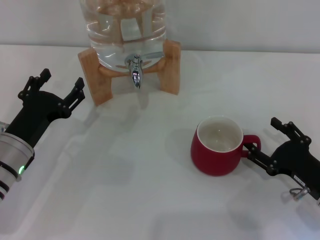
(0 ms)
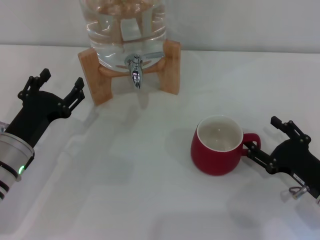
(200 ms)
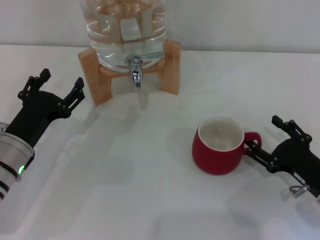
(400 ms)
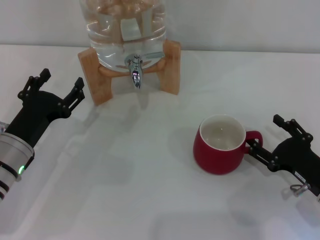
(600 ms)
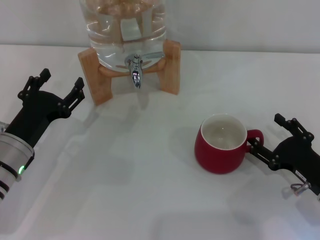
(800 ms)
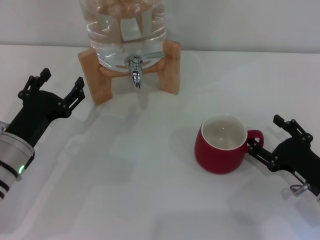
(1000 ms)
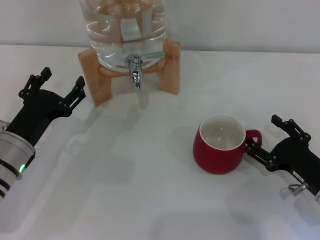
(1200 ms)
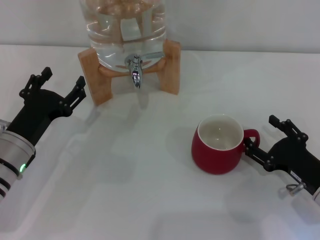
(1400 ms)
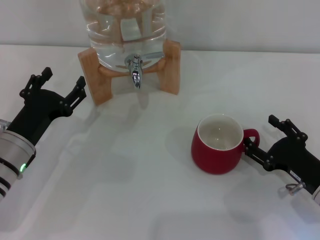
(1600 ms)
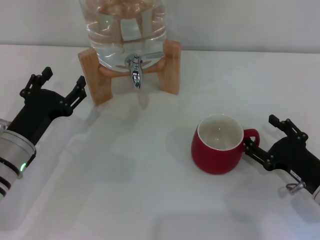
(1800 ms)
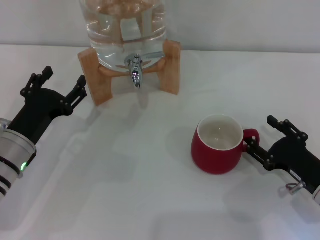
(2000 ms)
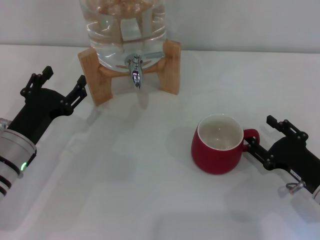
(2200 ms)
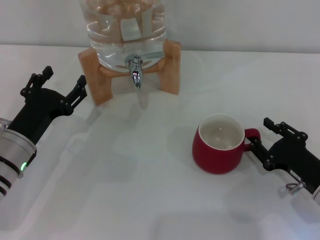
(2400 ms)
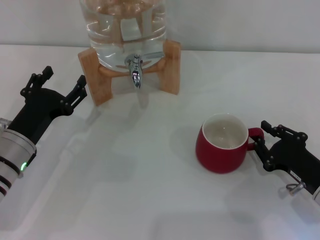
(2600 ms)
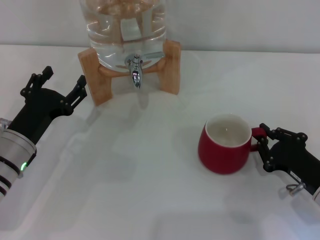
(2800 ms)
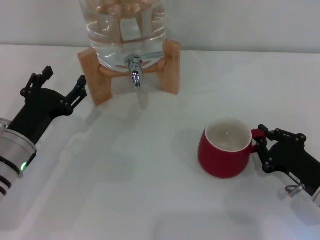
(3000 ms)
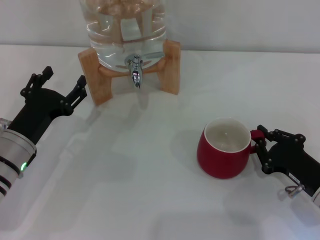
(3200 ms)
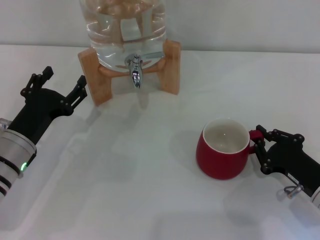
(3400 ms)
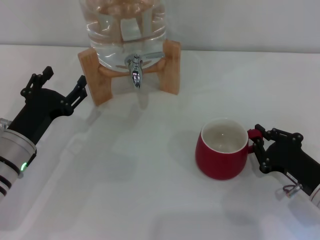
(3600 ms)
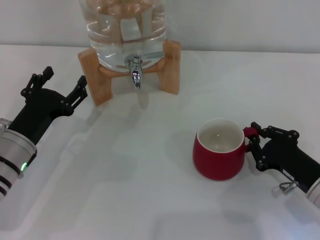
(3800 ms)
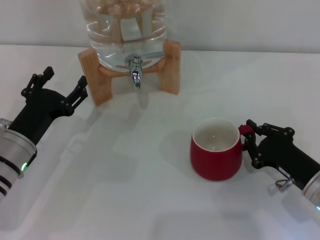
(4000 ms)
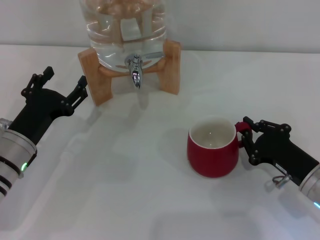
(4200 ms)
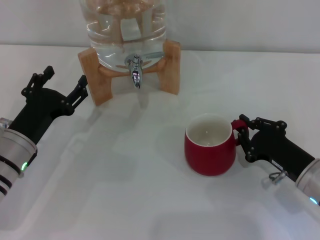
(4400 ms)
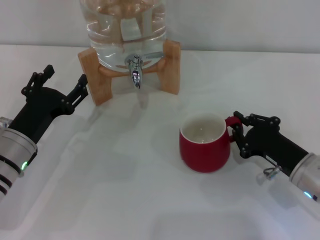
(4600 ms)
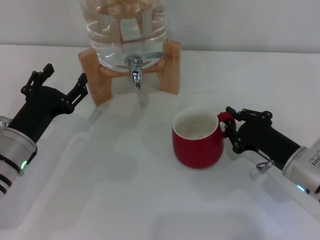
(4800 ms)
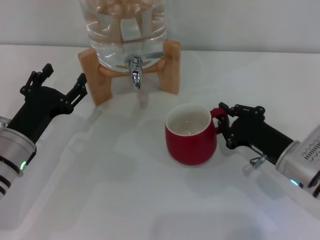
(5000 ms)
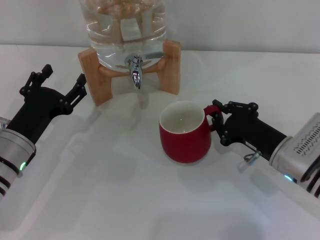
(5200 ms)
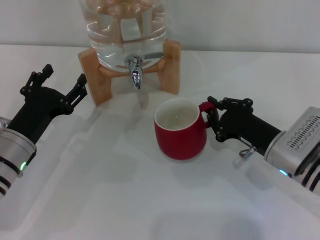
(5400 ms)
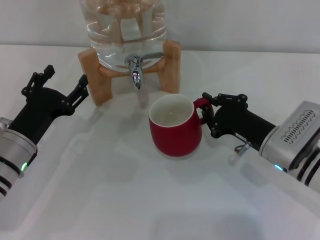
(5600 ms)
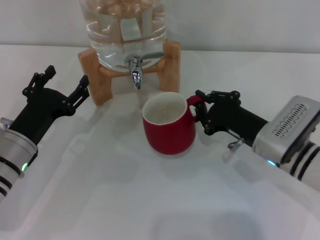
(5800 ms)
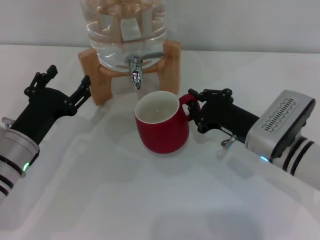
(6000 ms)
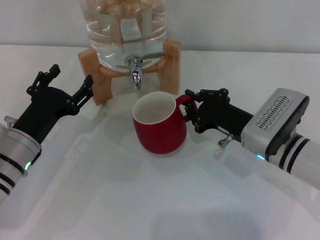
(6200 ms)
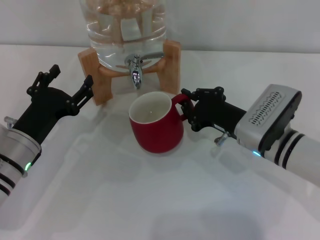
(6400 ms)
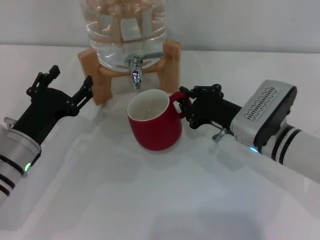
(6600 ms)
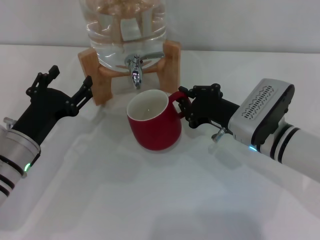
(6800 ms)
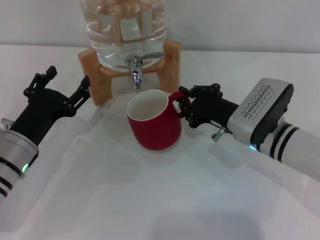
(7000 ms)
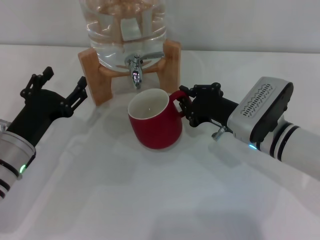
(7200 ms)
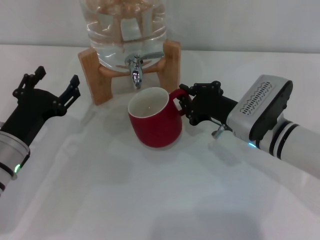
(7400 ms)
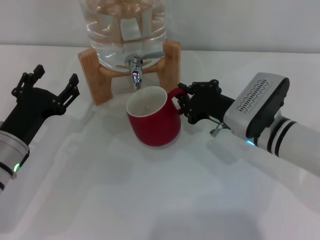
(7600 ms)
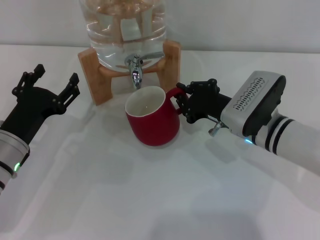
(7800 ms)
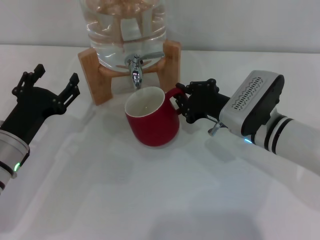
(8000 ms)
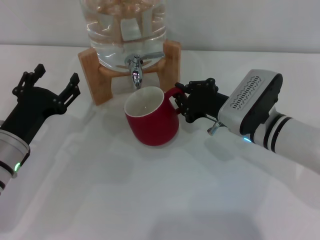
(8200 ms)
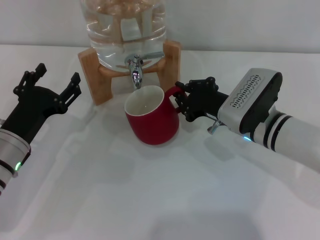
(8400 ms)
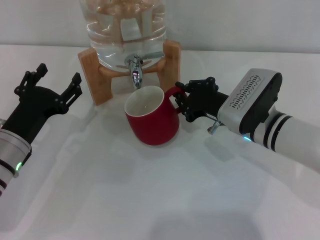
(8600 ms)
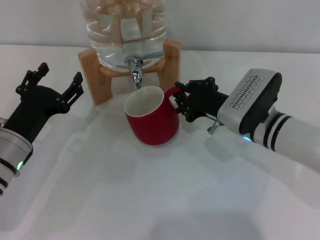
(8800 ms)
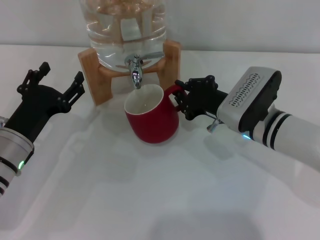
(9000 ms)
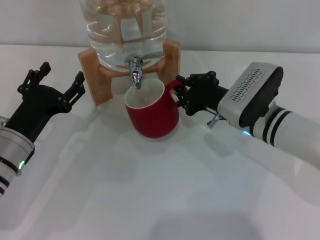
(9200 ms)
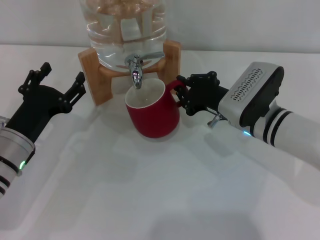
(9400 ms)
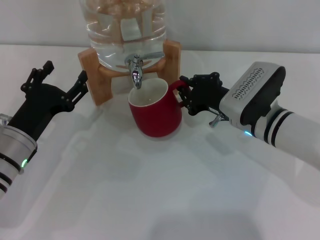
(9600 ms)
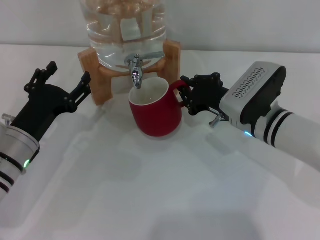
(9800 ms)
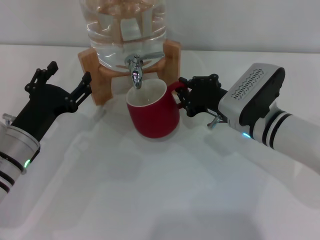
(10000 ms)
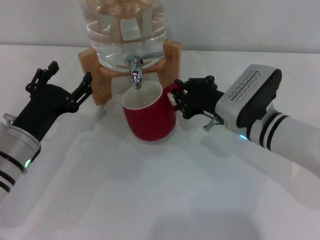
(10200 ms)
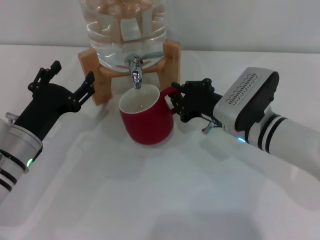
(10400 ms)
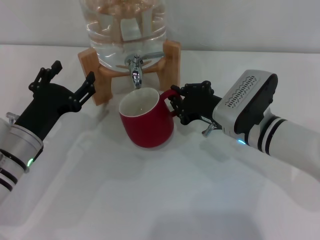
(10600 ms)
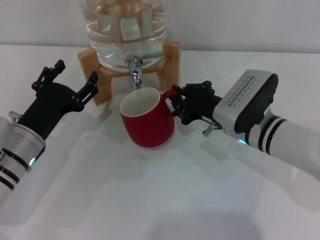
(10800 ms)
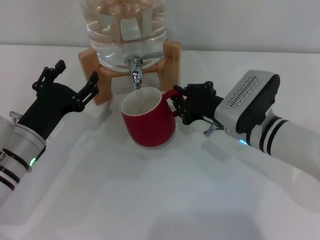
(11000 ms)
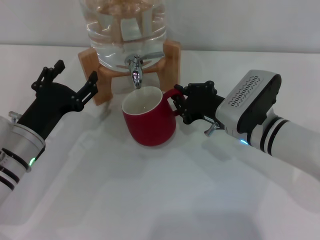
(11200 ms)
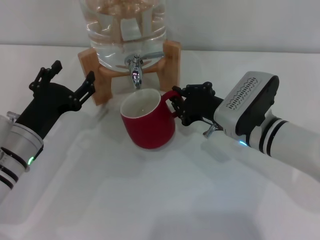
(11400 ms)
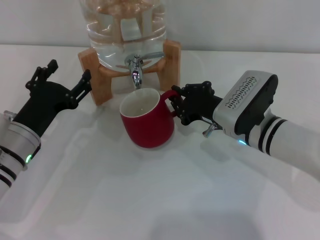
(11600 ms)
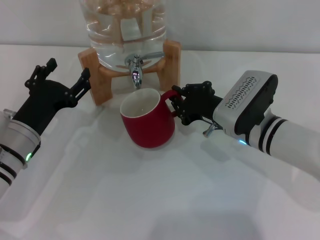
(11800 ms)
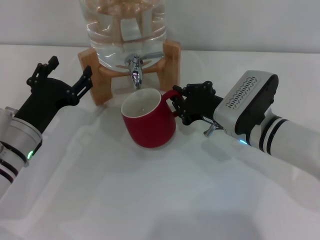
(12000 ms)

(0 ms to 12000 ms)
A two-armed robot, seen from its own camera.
Task of the whole recording: the right gripper pick up the red cup and place it horizontally under the faucet, the left gripper turn on the faucet to fill the cup, and then turn off the faucet.
0 ms - 1600 ms: Both grippers stay put.
1600 ms - 3000 ms: The right gripper closes up.
3000 ms - 4400 ms: The grippers make only small movements.
4400 ms - 6000 ms: The right gripper shifts some 10 cm to the left and forward.
6000 ms - 7600 ms: The grippers move only a little.
7600 ms - 9000 ms: Neither gripper changes place.
9000 ms - 10400 ms: The two grippers keep their place.
10400 ms - 12000 ms: Both grippers stay about where they are.

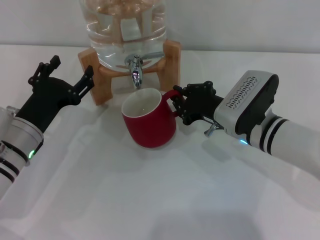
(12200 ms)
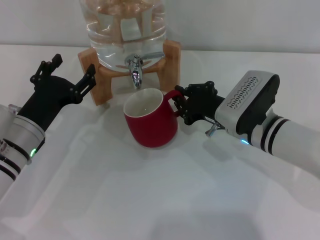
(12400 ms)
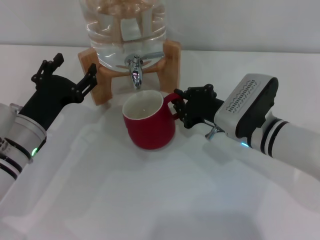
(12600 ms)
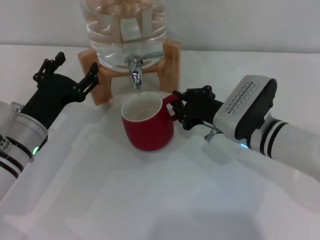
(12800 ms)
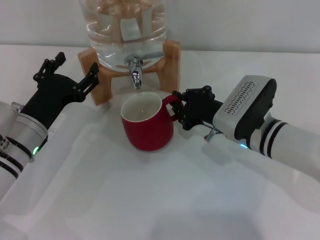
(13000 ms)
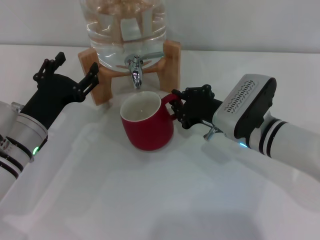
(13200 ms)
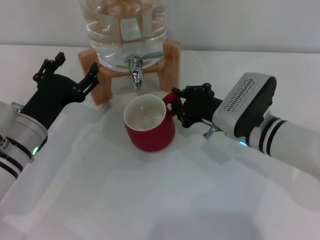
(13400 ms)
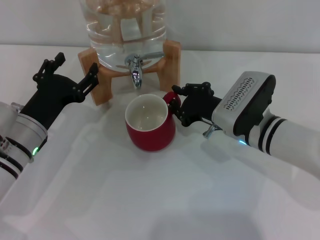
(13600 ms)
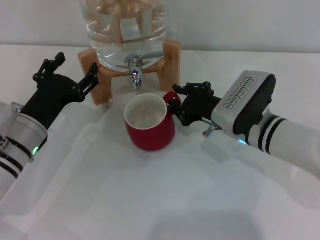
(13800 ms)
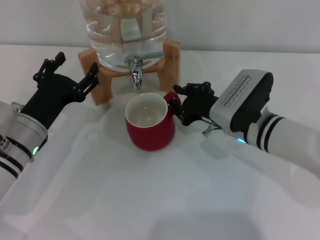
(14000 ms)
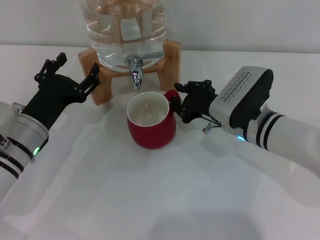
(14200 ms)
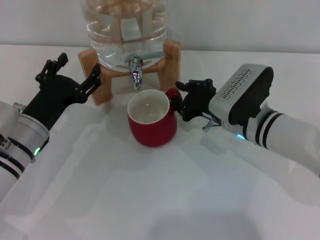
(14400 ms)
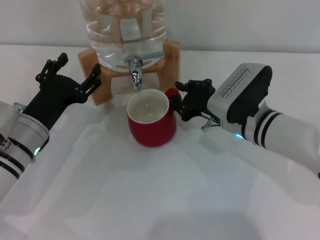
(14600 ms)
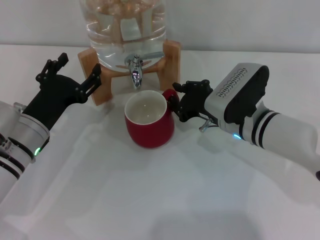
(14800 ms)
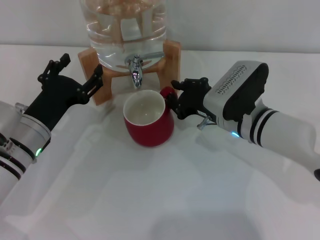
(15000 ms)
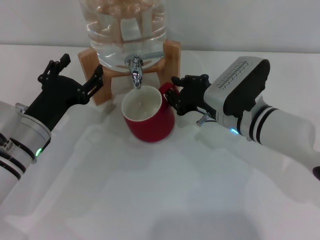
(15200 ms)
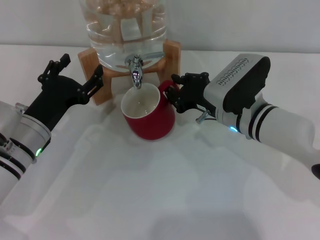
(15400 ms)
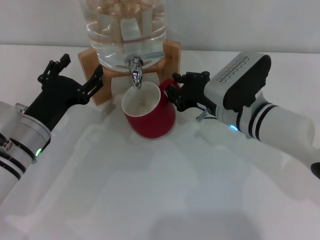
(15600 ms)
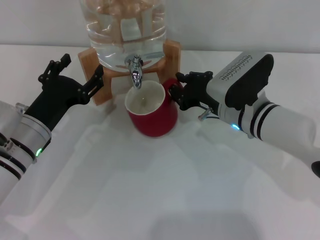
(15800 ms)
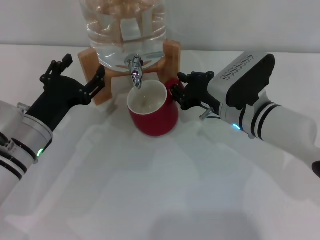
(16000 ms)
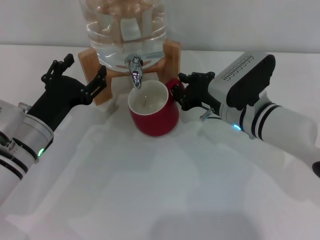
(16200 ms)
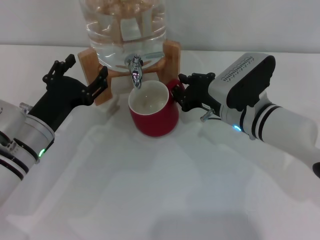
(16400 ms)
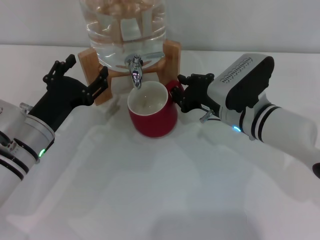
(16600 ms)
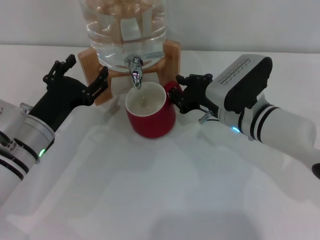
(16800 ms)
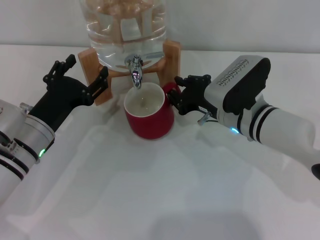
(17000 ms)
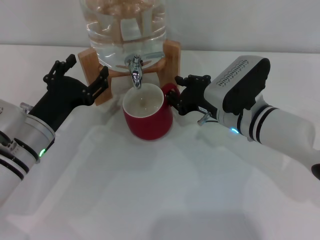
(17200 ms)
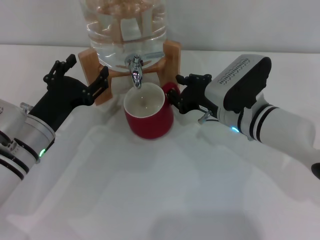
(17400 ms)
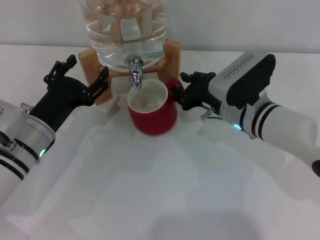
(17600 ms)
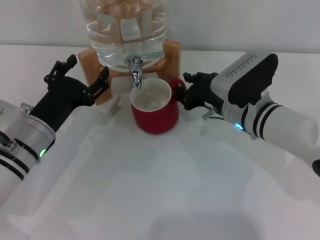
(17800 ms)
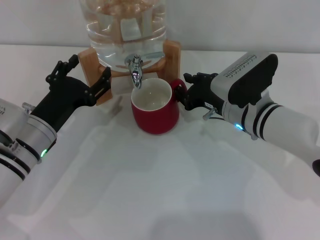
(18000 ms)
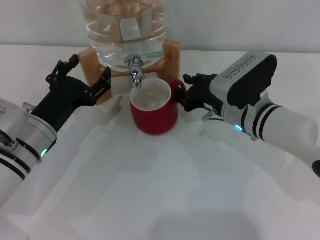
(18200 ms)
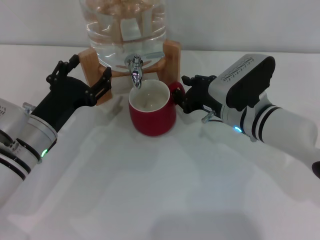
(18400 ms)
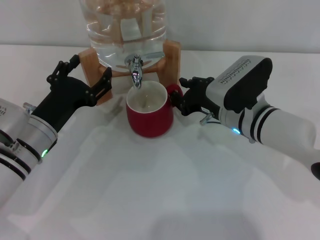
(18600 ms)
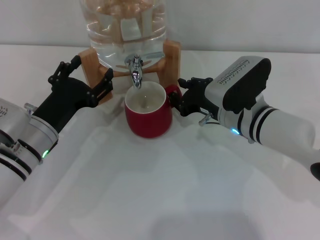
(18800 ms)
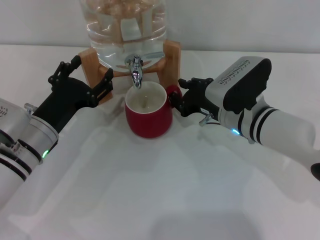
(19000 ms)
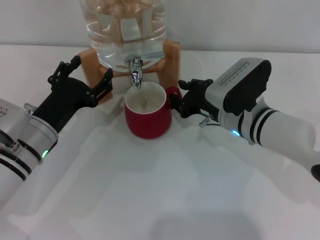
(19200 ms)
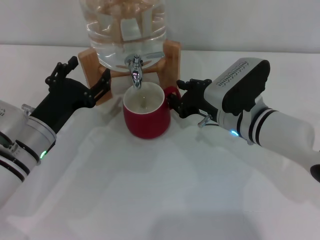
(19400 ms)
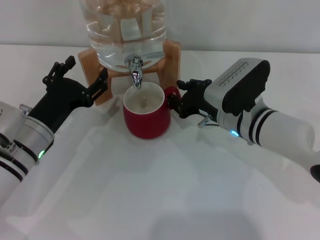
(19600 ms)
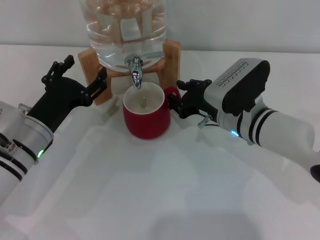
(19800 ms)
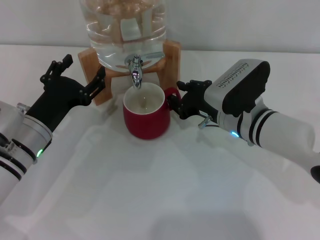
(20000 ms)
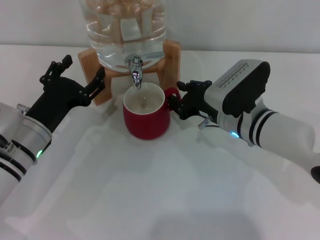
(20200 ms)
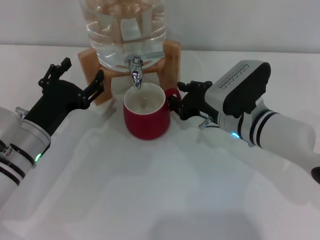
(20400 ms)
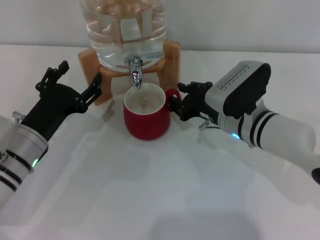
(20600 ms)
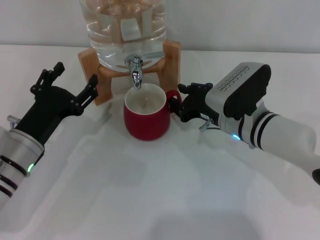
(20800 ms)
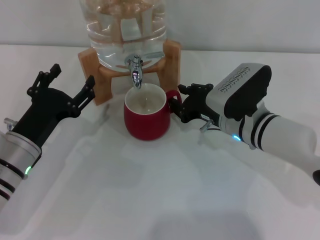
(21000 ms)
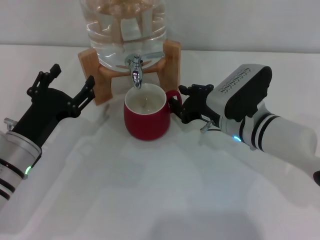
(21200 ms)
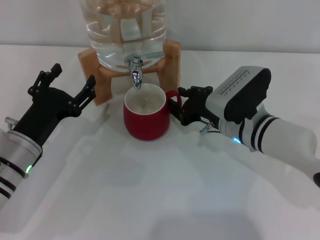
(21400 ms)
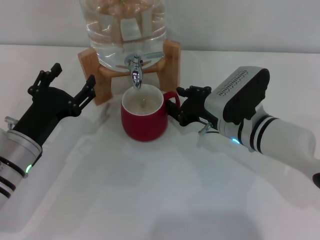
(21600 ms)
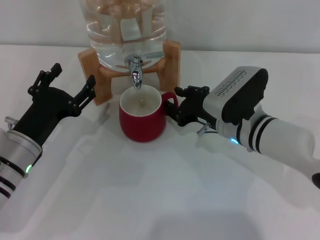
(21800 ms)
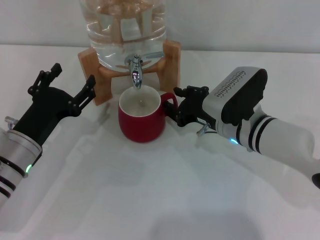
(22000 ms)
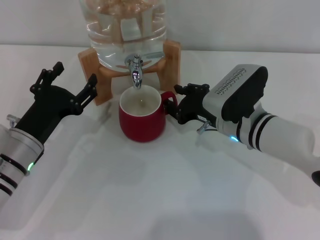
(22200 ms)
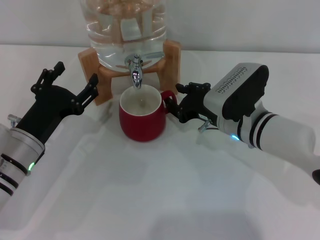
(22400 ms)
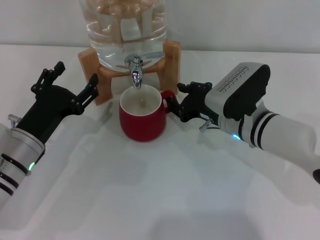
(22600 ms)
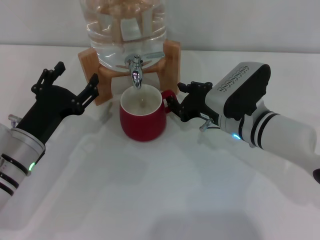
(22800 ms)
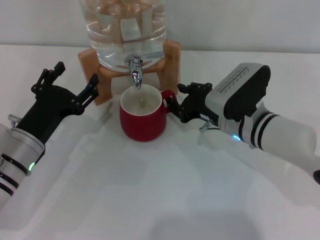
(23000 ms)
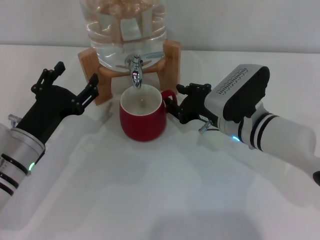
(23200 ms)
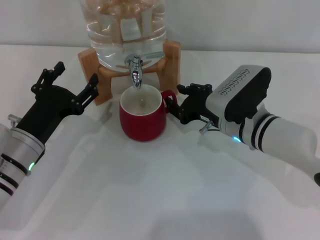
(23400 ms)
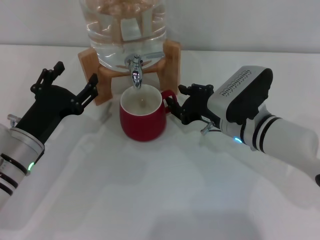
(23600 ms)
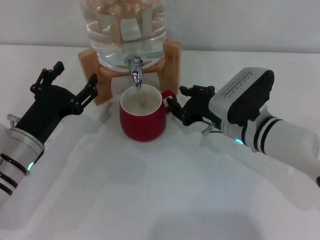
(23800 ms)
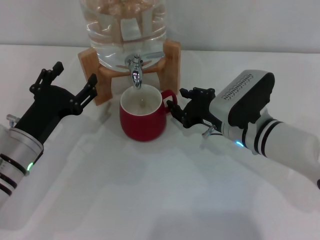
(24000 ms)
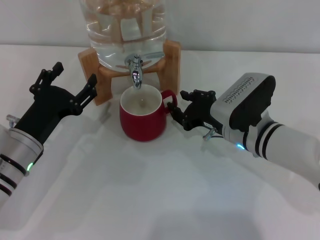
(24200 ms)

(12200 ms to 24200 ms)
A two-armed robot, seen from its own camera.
Task of the whole recording: the right gripper pick up the red cup and place it horizontally under the faucet, the left gripper turn on the faucet to fill the cup, and then turn off the faucet.
12200 ms - 13800 ms: Neither gripper changes place.
13800 ms - 15200 ms: There are only small adjustments of the grippers.
15200 ms - 16600 ms: The two grippers keep their place.
16600 ms - 19800 ms: Neither gripper changes place.
19800 ms - 21200 ms: There are only small adjustments of the grippers.
21200 ms - 22600 ms: The two grippers keep their place.
22600 ms - 24200 ms: The grippers move only a little.
